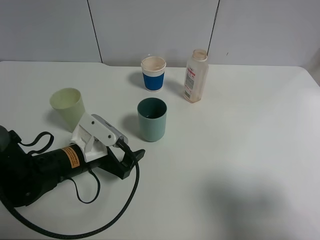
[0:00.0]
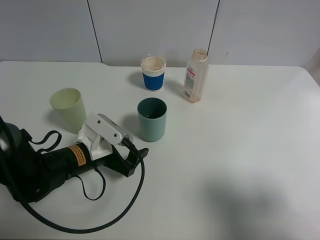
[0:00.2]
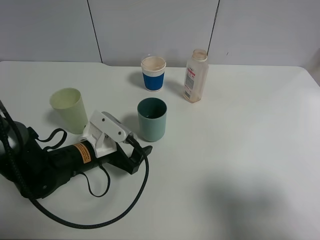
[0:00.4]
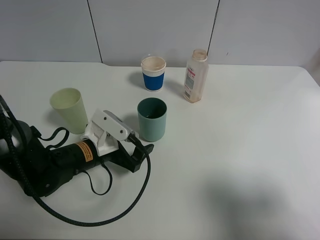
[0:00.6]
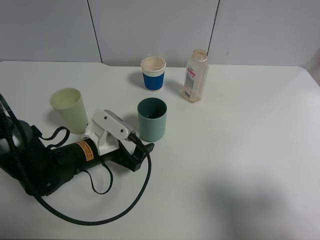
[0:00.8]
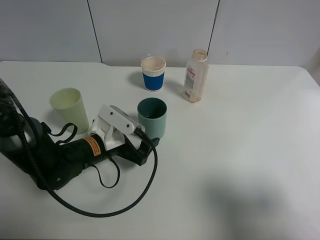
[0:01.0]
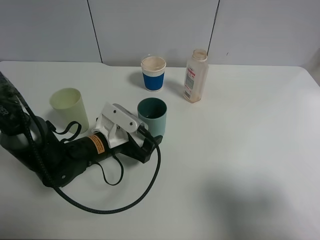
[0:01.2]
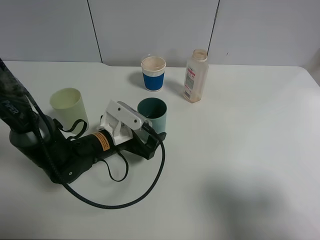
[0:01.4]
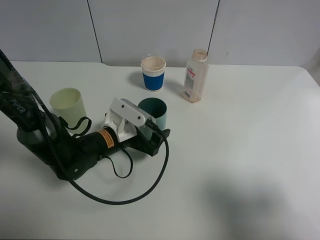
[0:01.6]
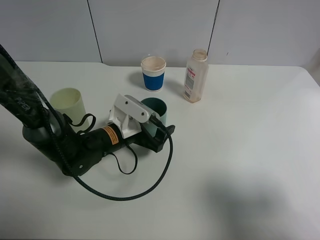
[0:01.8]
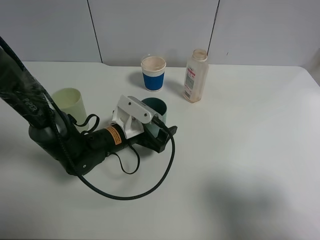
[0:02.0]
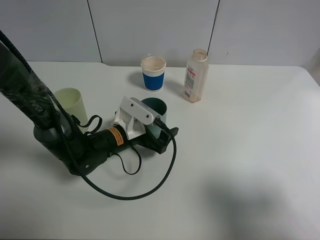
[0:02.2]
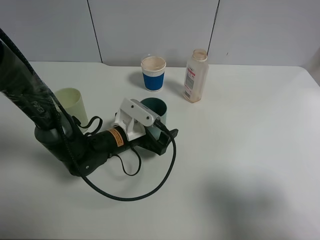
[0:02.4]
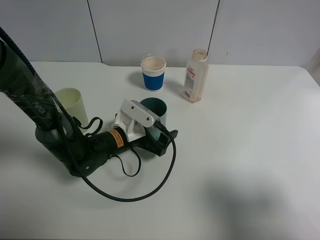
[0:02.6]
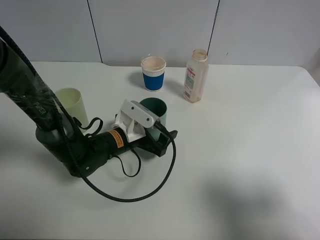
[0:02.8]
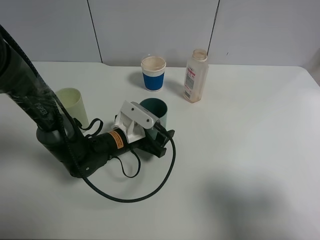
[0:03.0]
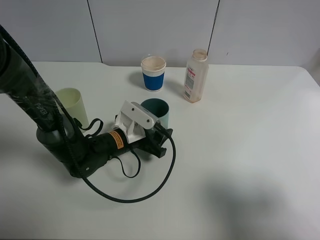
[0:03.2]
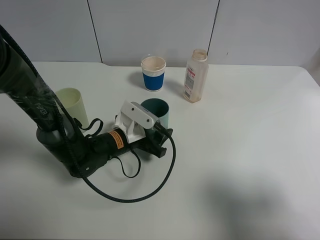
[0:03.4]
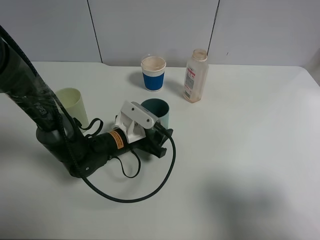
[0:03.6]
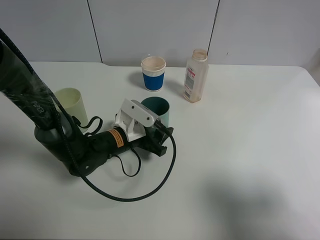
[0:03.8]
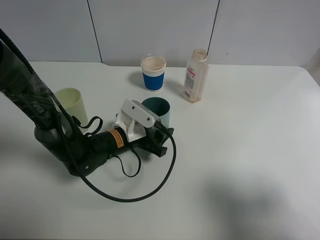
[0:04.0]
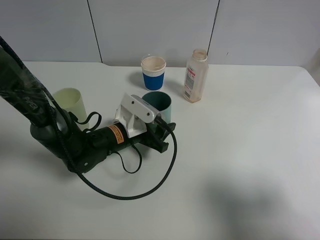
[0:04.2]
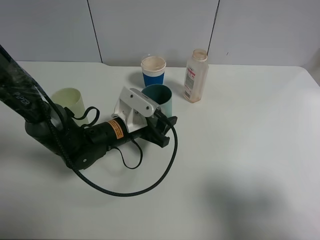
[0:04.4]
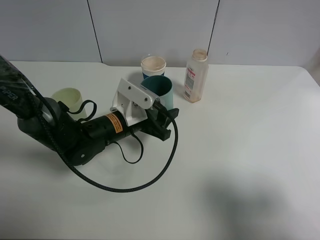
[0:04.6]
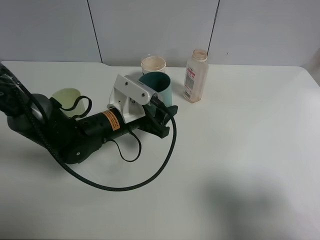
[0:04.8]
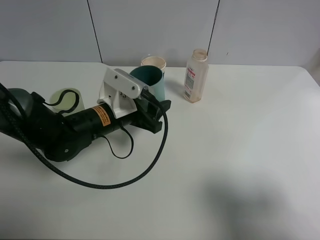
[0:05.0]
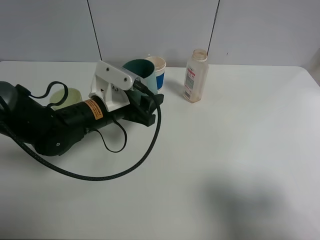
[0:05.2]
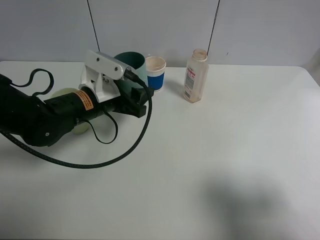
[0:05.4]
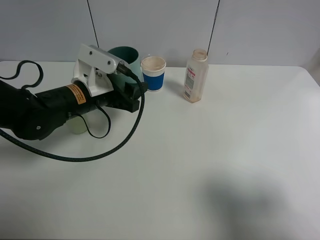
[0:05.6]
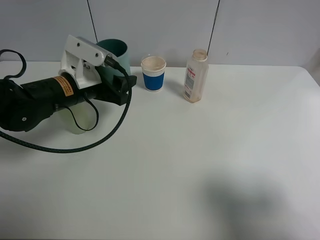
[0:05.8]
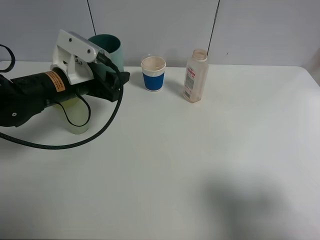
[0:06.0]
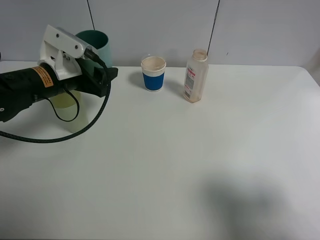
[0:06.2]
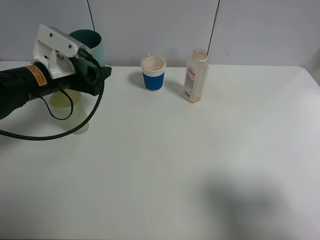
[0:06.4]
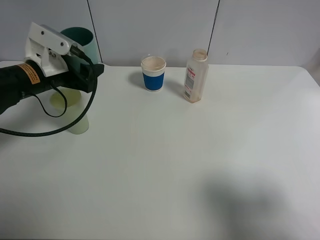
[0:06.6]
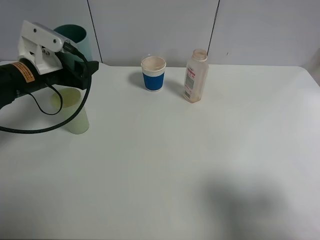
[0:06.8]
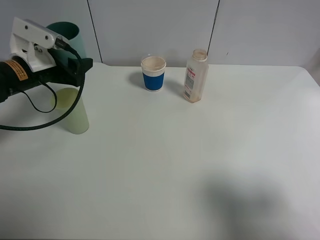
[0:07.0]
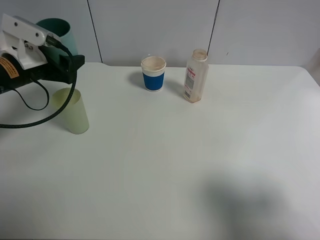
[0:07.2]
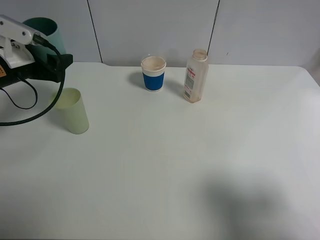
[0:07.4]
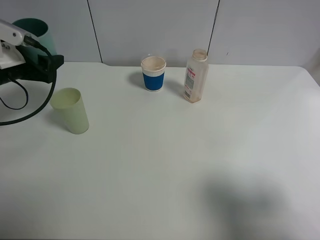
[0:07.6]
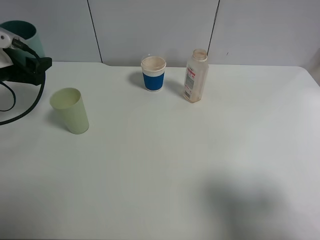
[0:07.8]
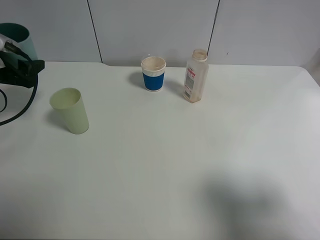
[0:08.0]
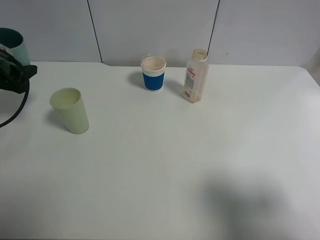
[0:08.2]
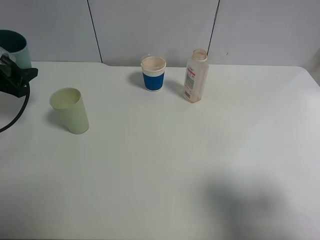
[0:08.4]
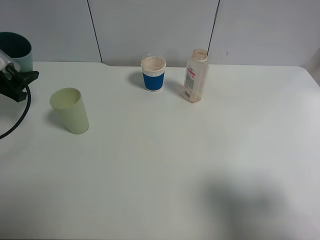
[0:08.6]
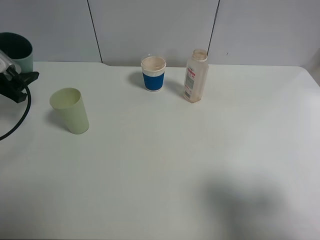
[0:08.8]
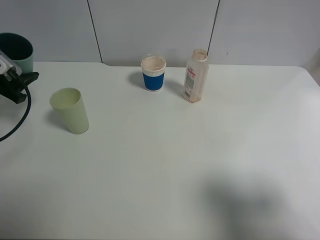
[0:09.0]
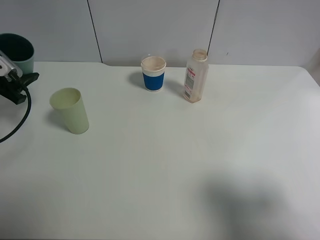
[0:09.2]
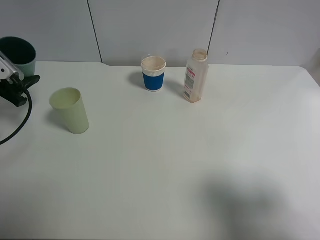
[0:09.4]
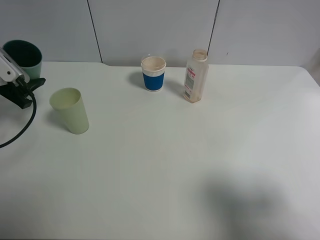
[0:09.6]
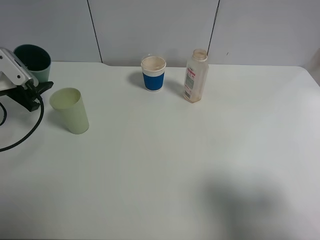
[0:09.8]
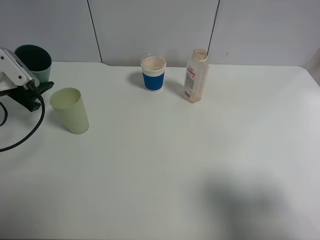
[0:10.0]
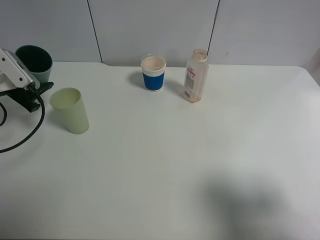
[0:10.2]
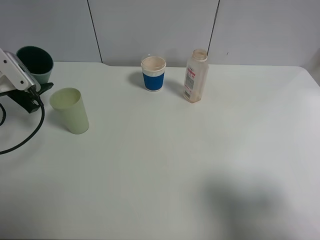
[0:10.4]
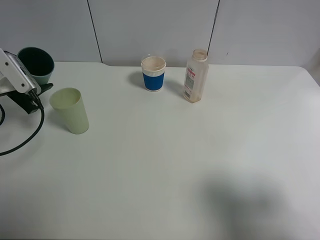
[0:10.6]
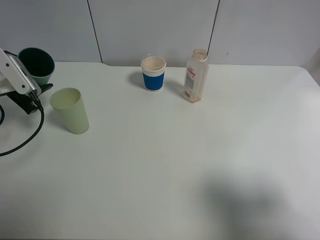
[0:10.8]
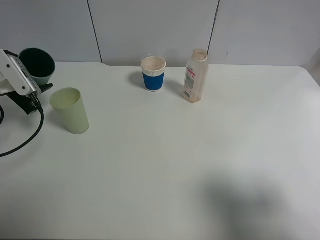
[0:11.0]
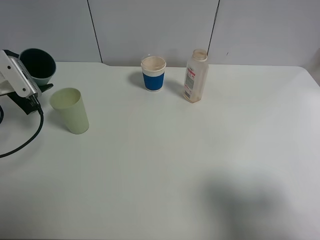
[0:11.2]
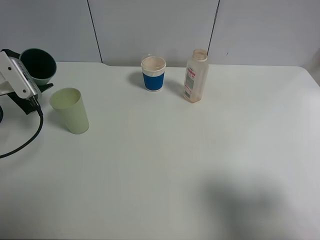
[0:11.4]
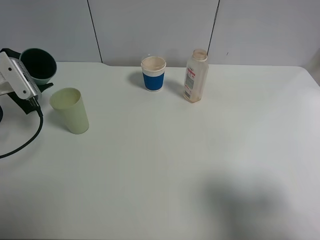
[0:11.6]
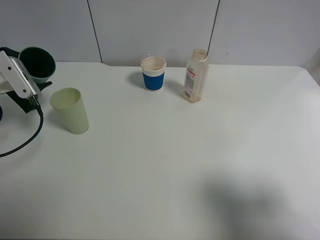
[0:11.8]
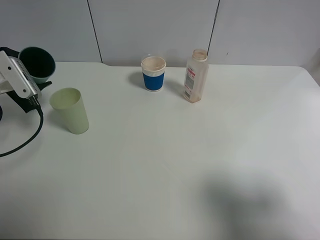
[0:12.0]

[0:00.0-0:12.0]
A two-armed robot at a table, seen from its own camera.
Task of the whole recording: use a clamp to hold the bottle of the drink, pour the beverage into a random cup, then clamp the cup containing the drink and pour the drink into another random cup.
Step, 0:00.0 to 0:04.6: Pick up the blue plastic cup bottle with left gripper.
0:00.0 to 0:01.6: The left gripper goes some 5 cm forward.
0:01.6 to 0:03.0: The left gripper closes its fingers.
0:03.0 to 0:04.4: The left gripper closes its fingers.
0:04.4 to 0:06.0: The left gripper goes approximately 15 cm upward and to the left.
0:06.0 to 0:07.6: The left gripper is displaced to the left by roughly 15 cm.
0:07.6 to 0:09.0: The left gripper heads to the left, covering about 5 cm.
0:09.0 to 0:10.4: There are only small adjustments of the grippers.
0:10.4 to 0:12.0: The grippers move only a little.

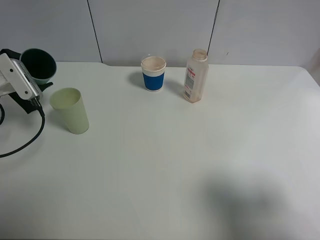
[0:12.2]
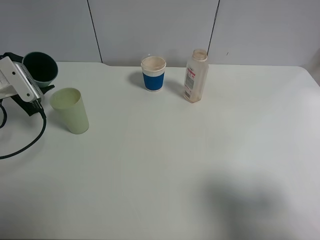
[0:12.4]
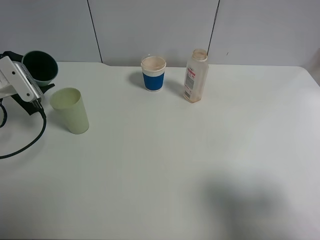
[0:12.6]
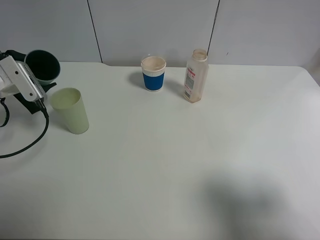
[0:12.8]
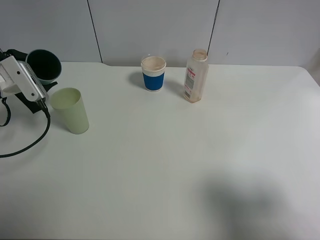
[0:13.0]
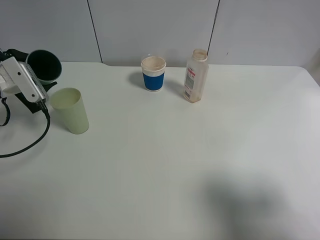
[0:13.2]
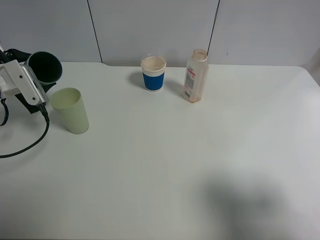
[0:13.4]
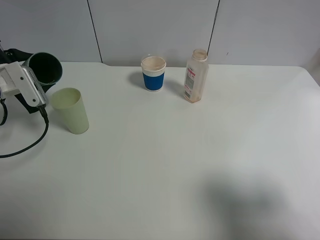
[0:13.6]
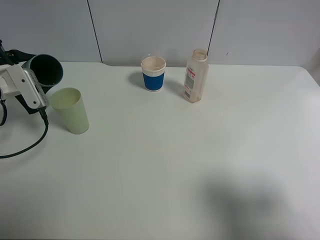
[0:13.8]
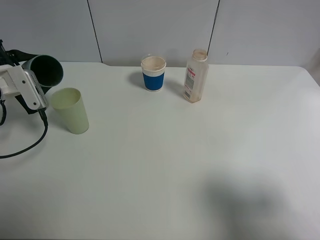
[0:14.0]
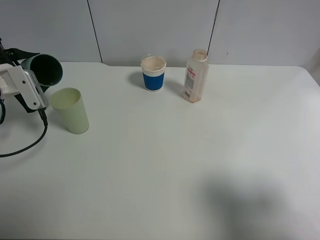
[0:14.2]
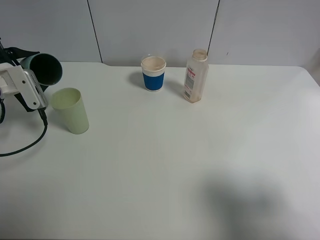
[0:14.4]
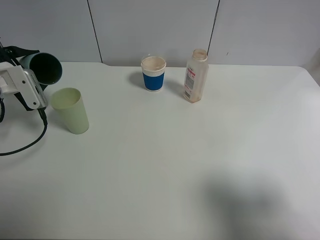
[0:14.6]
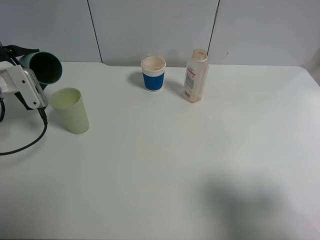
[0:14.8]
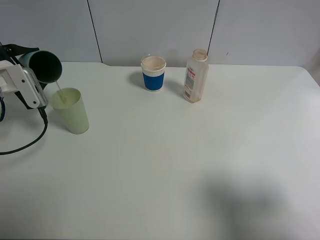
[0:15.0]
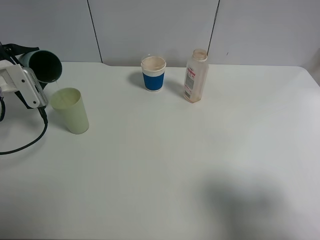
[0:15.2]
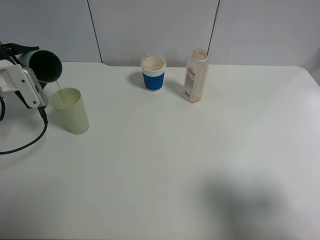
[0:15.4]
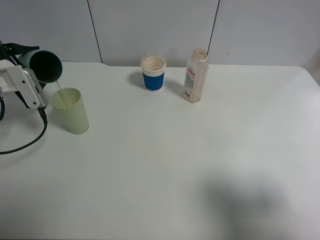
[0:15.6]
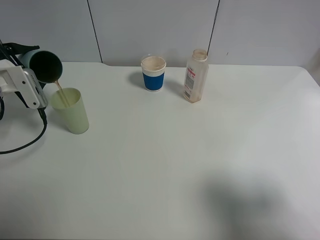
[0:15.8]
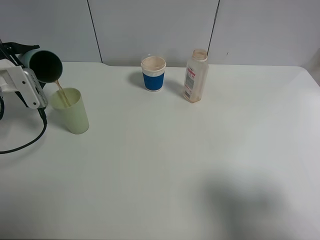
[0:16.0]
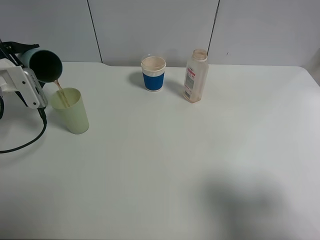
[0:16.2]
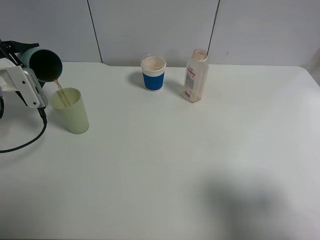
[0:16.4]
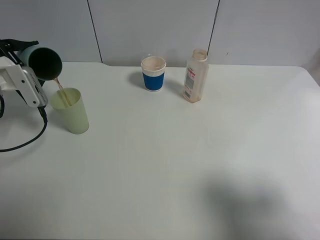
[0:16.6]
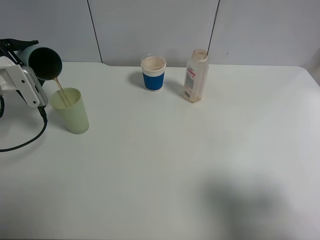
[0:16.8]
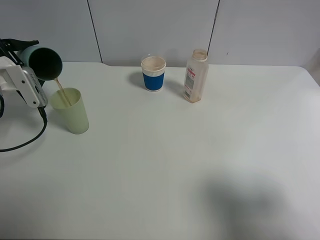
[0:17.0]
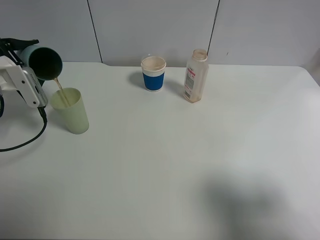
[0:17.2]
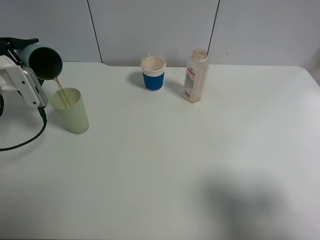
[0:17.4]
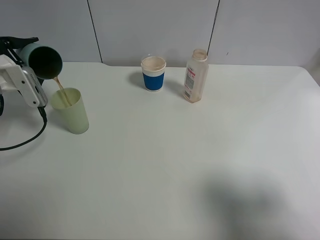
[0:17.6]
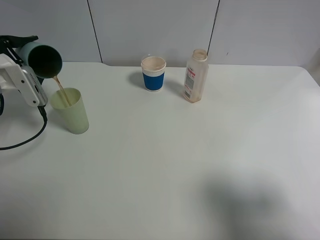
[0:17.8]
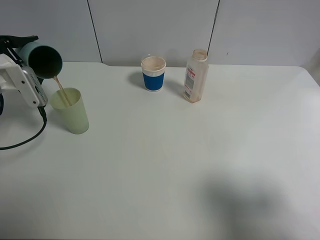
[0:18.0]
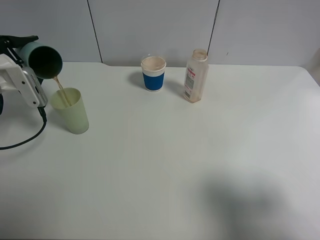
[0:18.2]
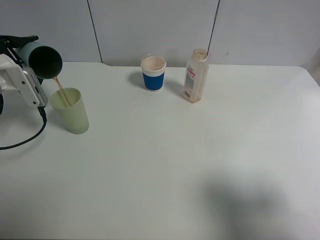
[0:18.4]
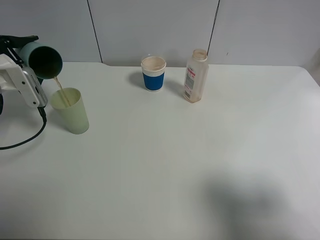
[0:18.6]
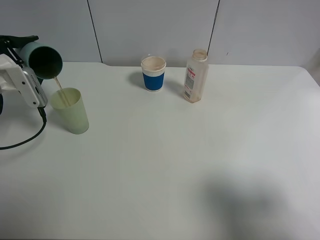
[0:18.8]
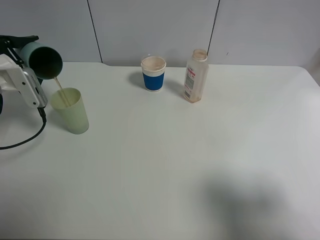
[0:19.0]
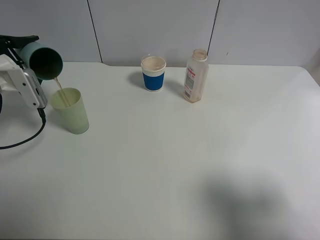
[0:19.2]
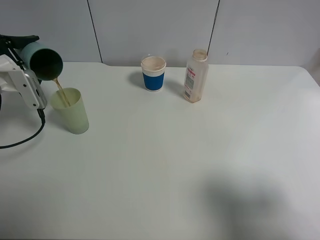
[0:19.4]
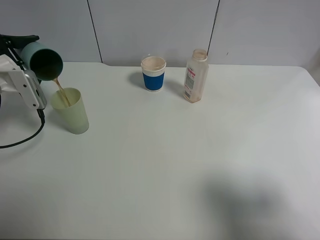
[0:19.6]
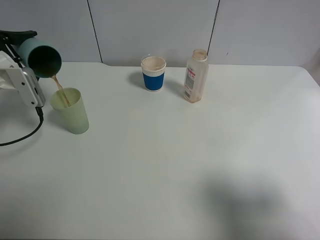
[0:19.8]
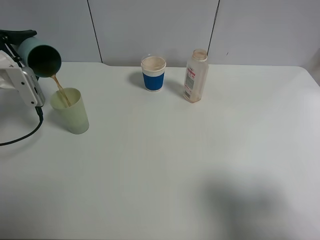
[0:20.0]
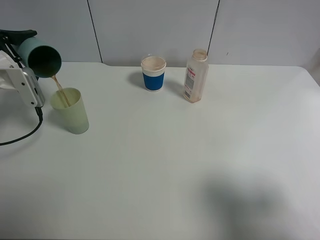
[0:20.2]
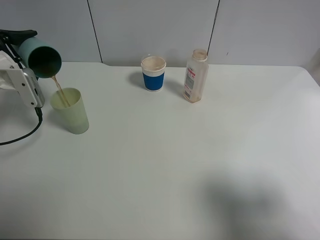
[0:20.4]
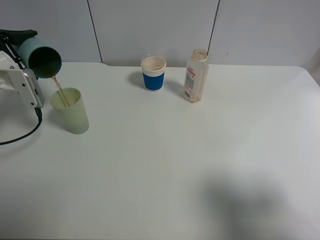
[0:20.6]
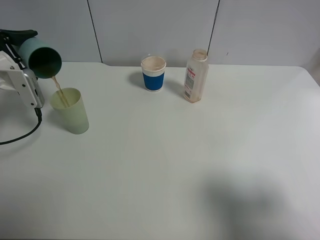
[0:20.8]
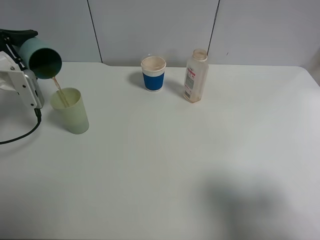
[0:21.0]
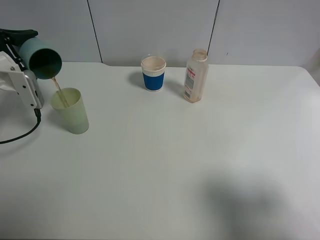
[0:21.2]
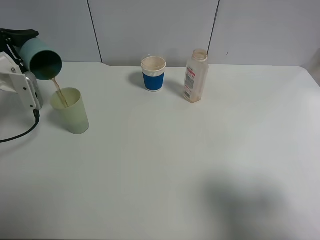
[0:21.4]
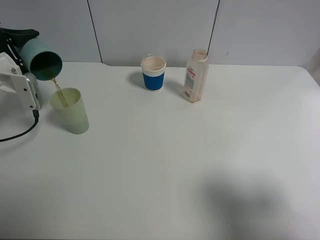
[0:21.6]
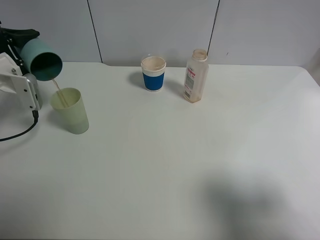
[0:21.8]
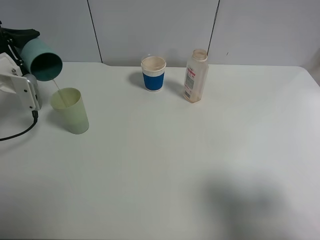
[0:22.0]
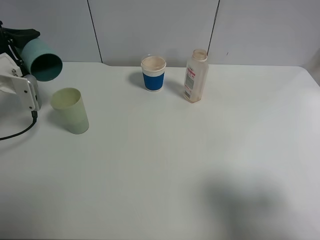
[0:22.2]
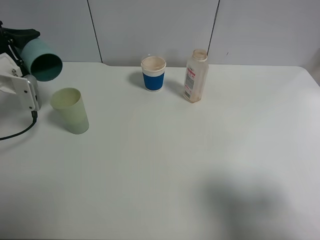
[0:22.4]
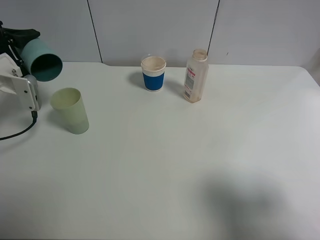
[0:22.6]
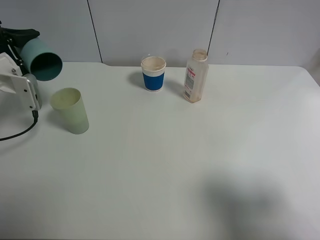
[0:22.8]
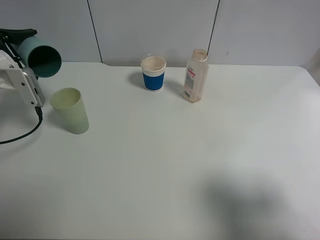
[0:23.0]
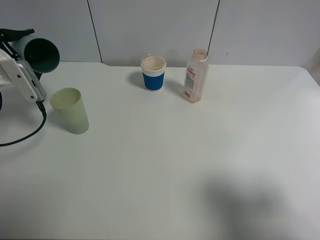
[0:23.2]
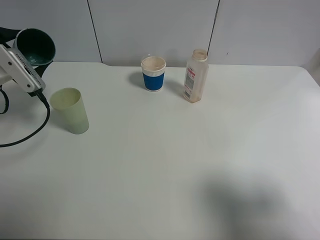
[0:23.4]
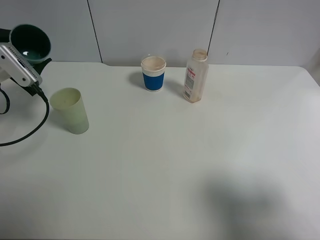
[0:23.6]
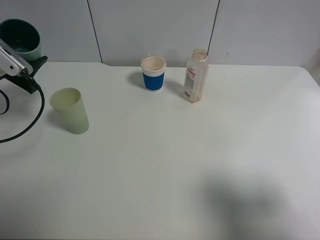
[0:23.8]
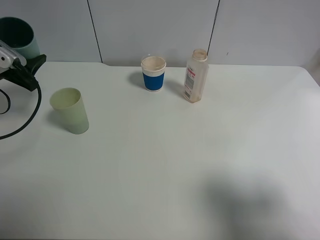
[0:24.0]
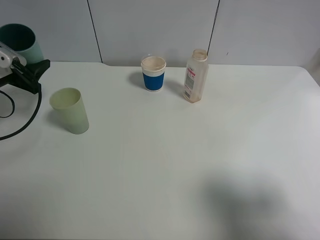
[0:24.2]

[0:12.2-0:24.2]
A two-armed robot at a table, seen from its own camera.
Task of the whole recording: use a clamp to hold the bottle of the drink, pour the beverage into a random cup, then clamp the cup containing the drink and pour the drink into another random cup.
Step, 0:12.2 to 0:23.2: Pour the drink into the green plastic cup with left gripper.
0:12.2 to 0:15.2: The grippers move only a little.
0:15.2 to 0:19.8: The grippers move only a little.
0:19.8 to 0:22.6: There are only small adjustments of the grippers.
